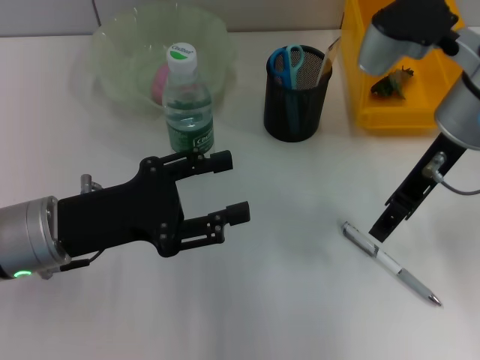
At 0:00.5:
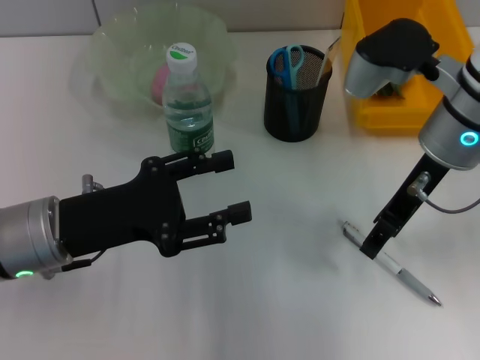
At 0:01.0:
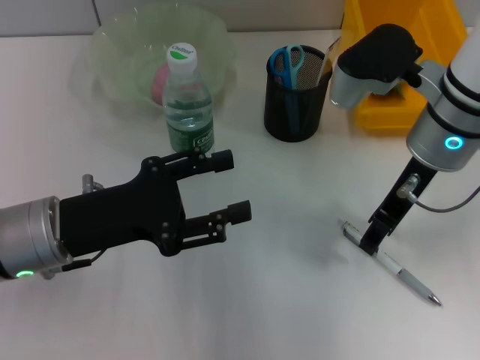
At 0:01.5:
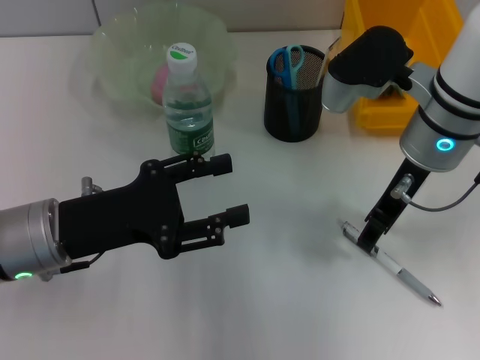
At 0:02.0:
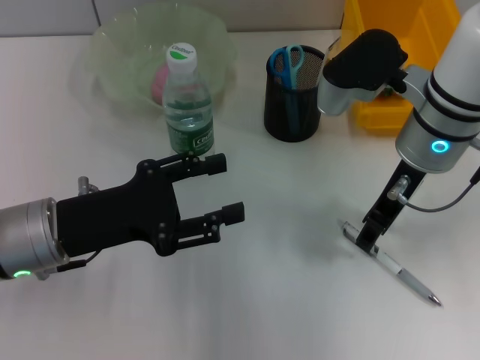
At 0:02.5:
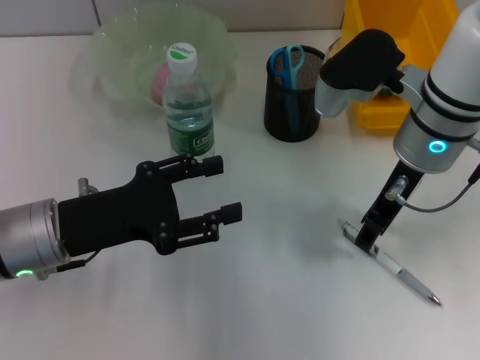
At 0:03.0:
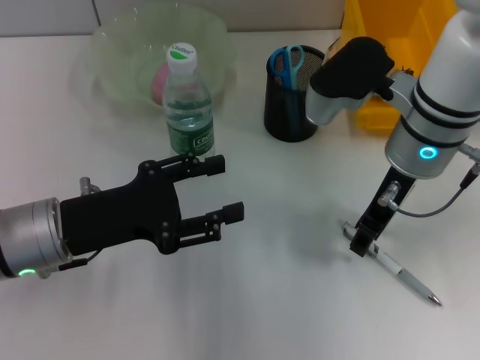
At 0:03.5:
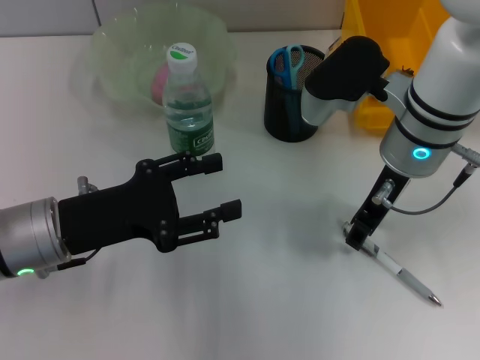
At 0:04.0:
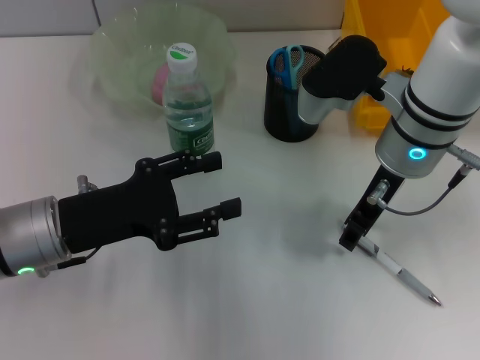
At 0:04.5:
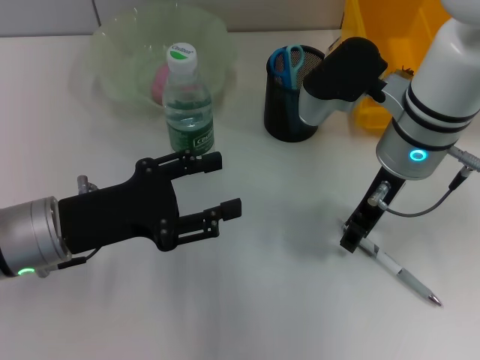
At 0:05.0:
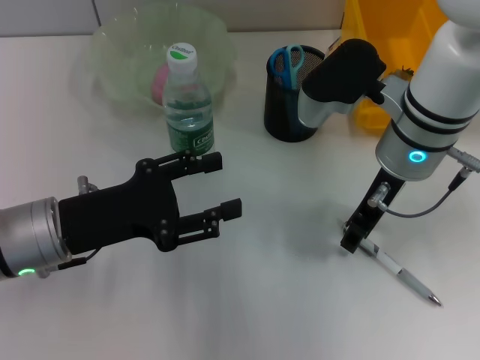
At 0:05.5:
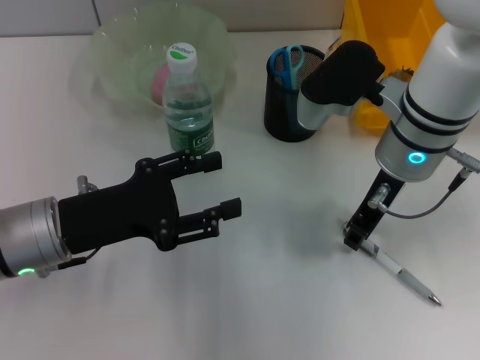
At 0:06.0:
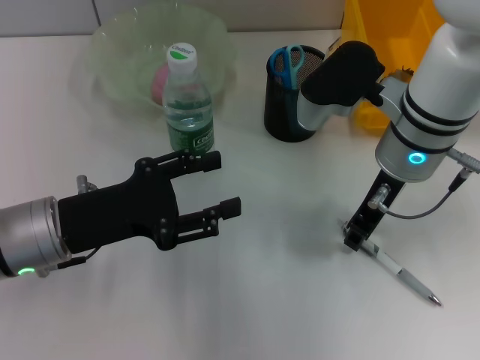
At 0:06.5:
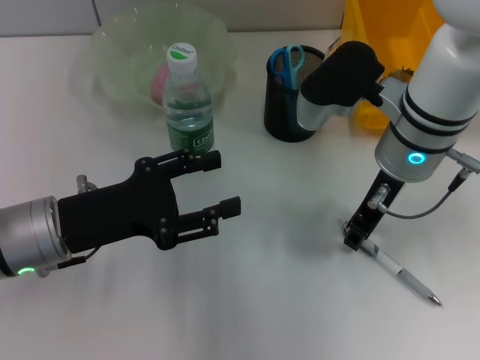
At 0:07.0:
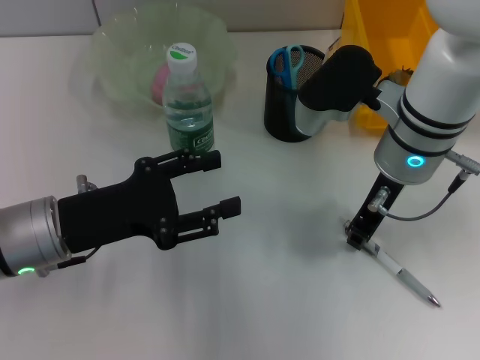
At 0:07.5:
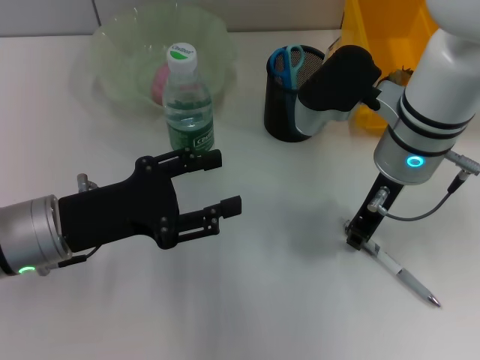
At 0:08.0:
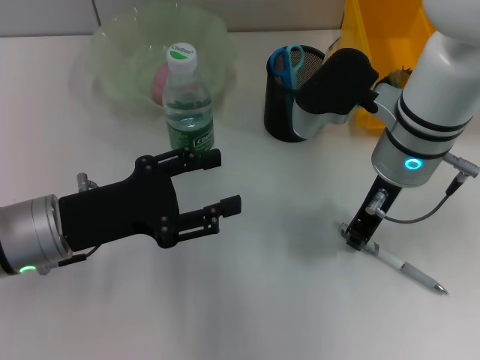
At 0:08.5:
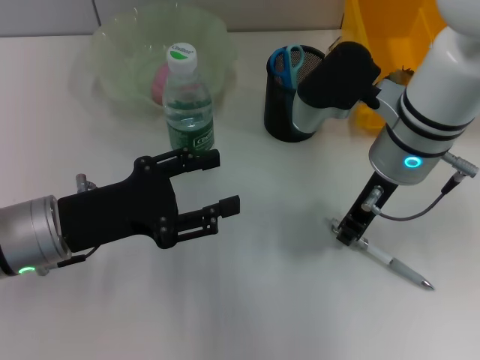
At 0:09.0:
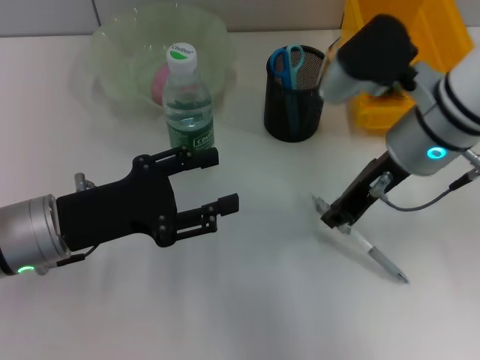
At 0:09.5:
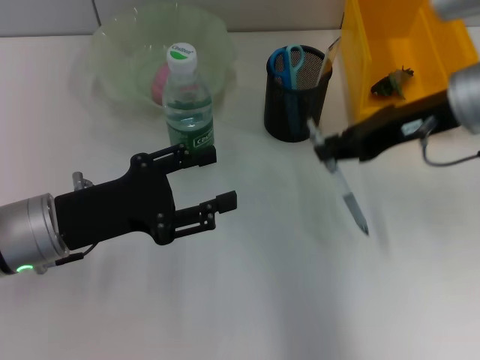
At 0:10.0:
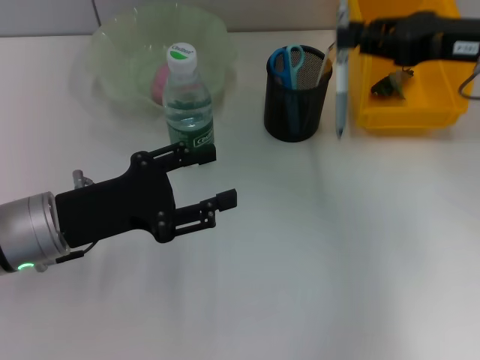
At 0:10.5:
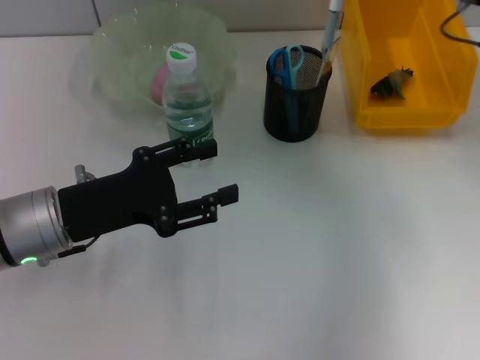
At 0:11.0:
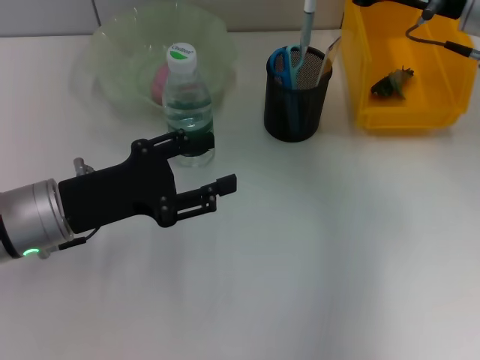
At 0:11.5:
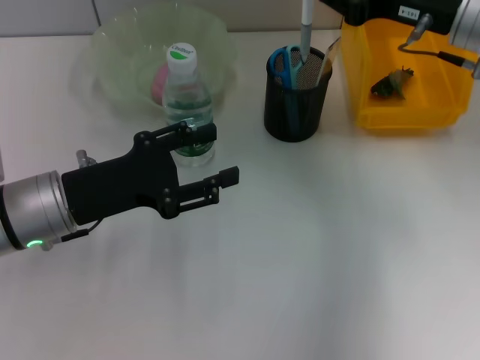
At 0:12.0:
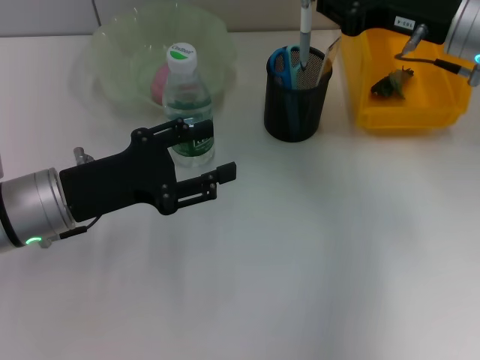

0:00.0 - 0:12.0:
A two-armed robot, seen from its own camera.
Step, 0:00.0 - 0:08.0: Grab the gray spring-action pen with the right hand.
0:00.0 - 0:02.0: There are only small adjustments of the grippers.
0:02.0 - 0:04.0: There are only small adjustments of the grippers.
0:04.0 - 0:08.0: Neither gripper changes place.
0:08.0 - 0:10.0: The right gripper is displaced to the right and upward by roughly 15 cm.
0:10.0 - 0:12.0: The right gripper moves roughly 5 cm.

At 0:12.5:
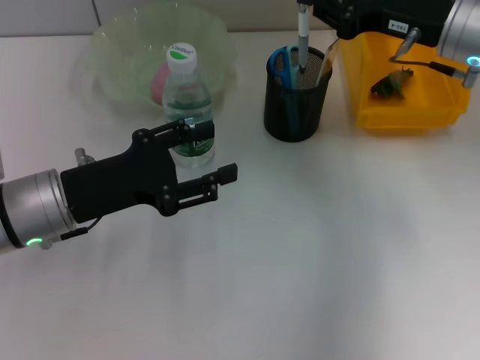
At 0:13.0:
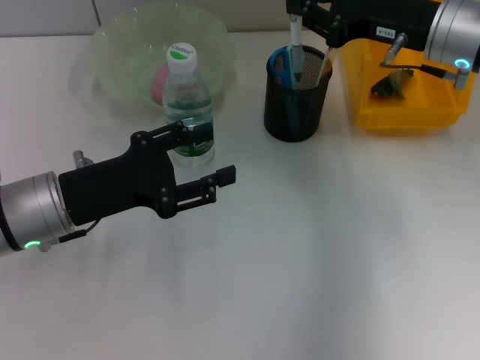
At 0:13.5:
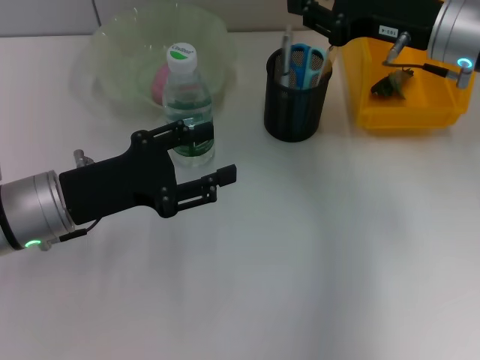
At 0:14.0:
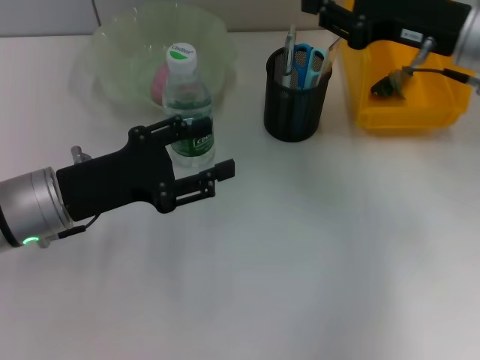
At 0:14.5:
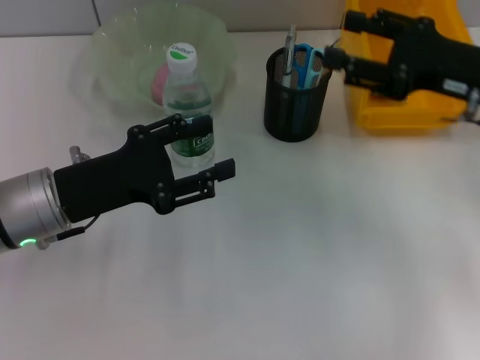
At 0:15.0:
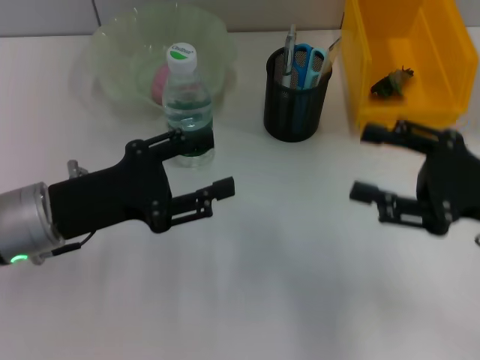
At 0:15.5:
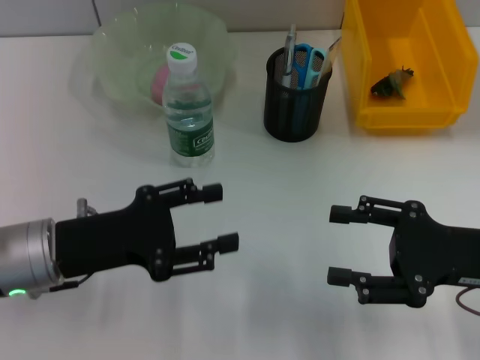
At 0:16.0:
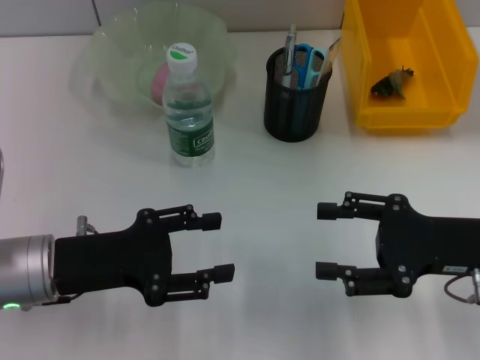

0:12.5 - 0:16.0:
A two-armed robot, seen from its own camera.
0:12.5 - 0:14.5: The right gripper is displaced backward by some 5 cm, and opens its fingers.
0:14.5 - 0:16.0: The right gripper moves backward and downward, approximately 10 cm.
